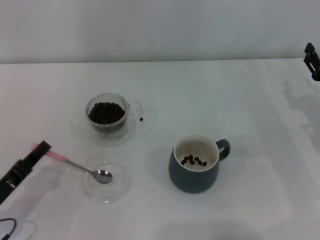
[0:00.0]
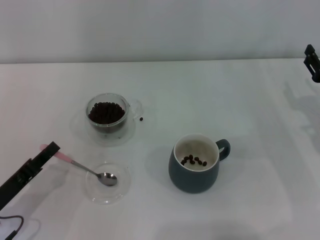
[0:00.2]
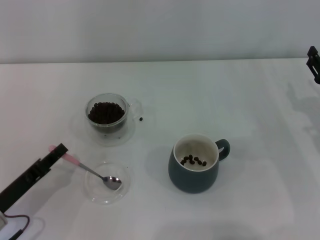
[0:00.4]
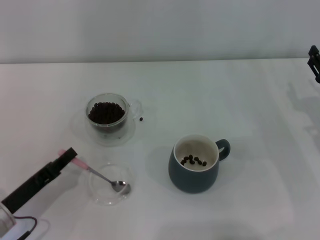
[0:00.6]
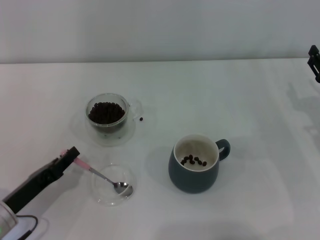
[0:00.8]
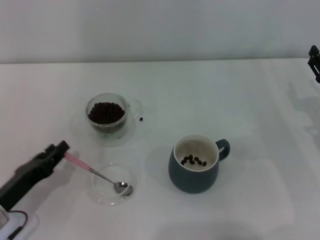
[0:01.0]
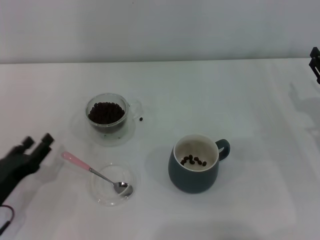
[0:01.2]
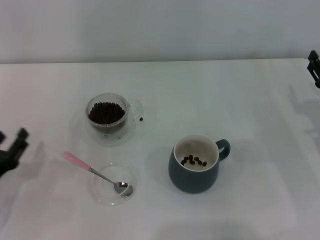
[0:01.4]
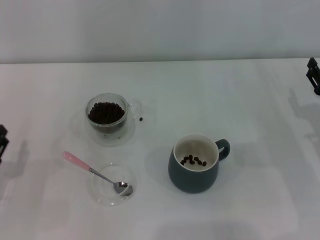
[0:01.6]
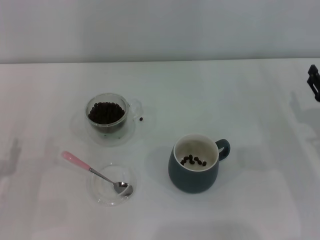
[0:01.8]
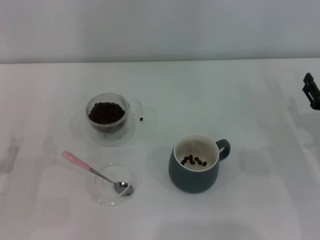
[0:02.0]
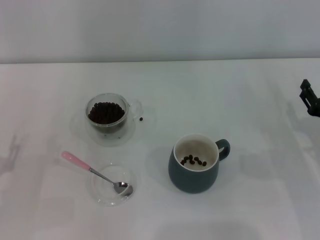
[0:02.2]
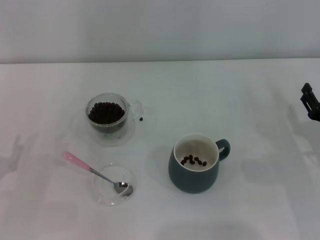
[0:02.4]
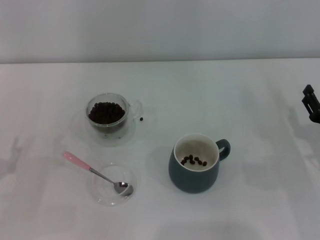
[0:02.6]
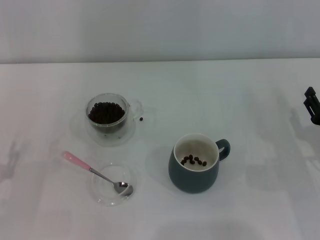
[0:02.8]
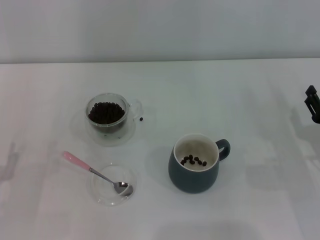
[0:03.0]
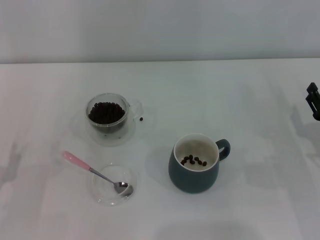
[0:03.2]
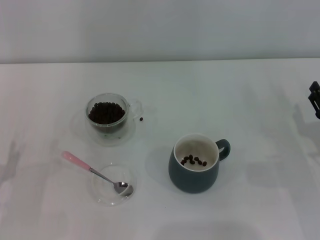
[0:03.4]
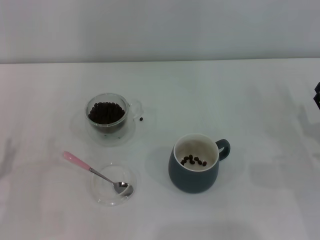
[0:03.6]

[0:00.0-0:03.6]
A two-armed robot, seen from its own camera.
Task of the whole recording: Use a pink spoon to take out the coffee beans from the glass and pour them into the gray cup.
Step, 0:00.0 to 0:01.0: Place the spoon back in its original place with the right gripper.
0:00.0 to 0:01.8: The left gripper opens its fingers.
